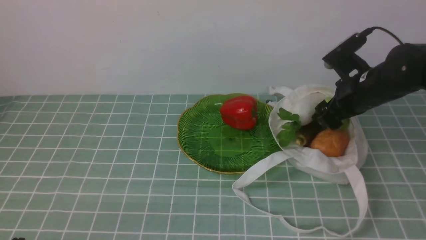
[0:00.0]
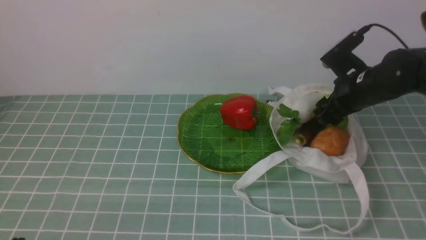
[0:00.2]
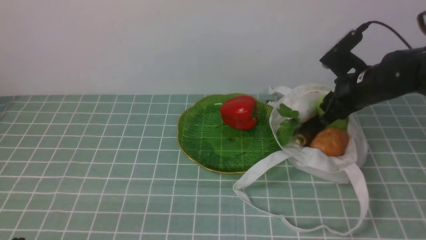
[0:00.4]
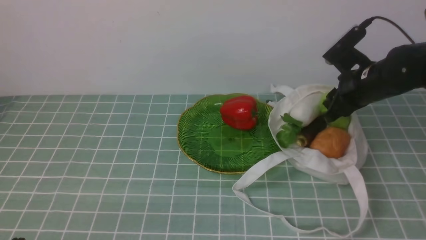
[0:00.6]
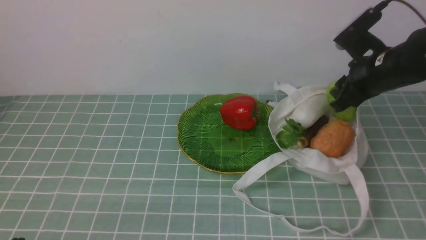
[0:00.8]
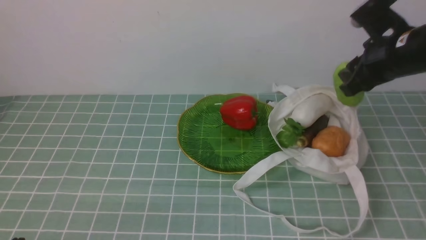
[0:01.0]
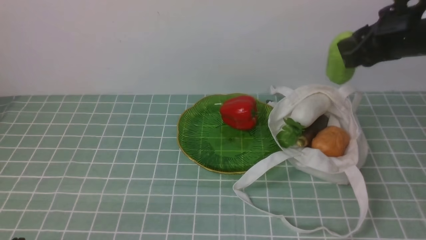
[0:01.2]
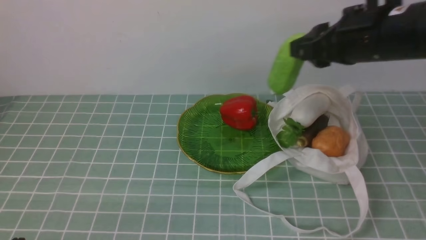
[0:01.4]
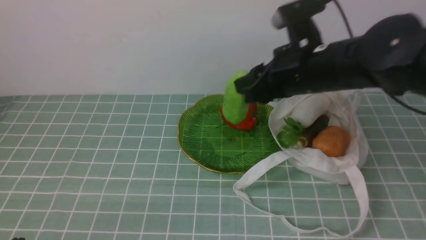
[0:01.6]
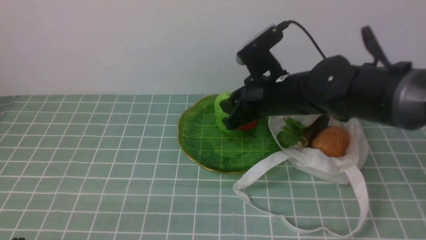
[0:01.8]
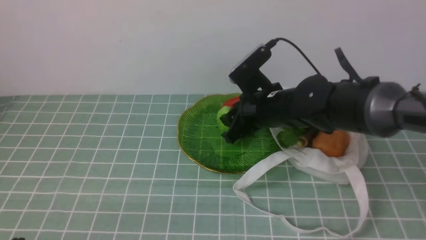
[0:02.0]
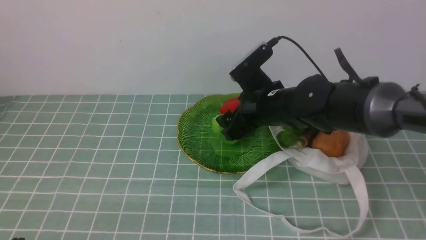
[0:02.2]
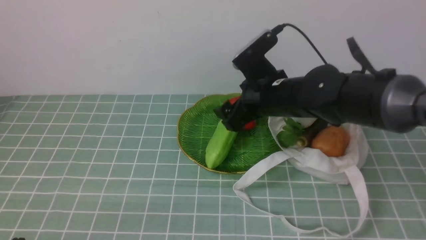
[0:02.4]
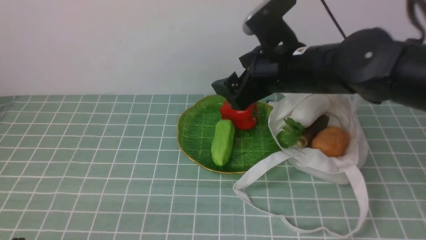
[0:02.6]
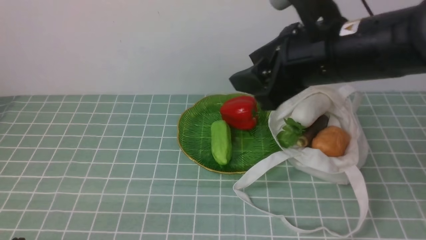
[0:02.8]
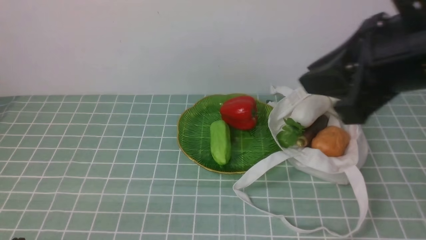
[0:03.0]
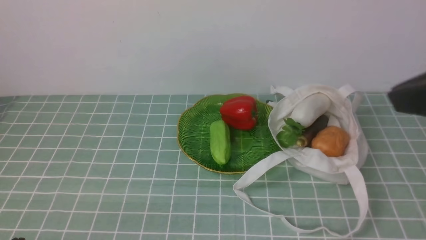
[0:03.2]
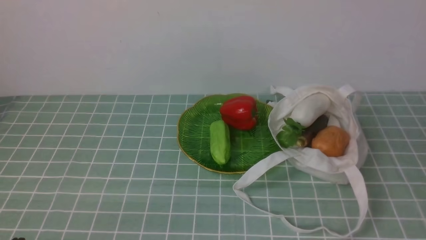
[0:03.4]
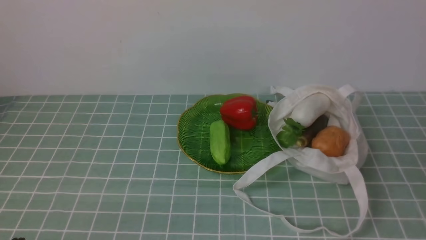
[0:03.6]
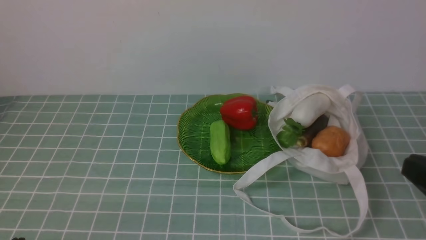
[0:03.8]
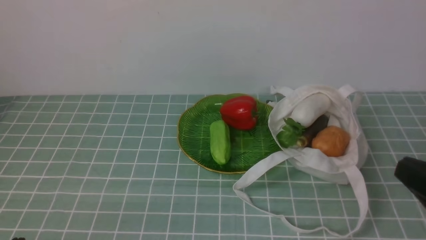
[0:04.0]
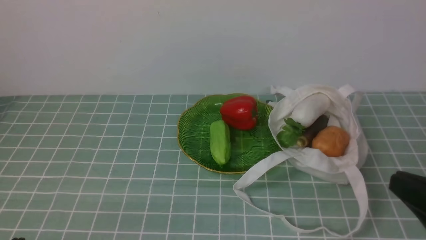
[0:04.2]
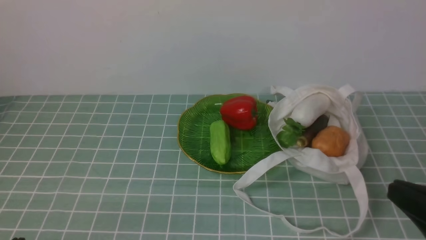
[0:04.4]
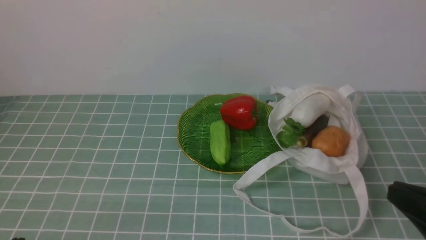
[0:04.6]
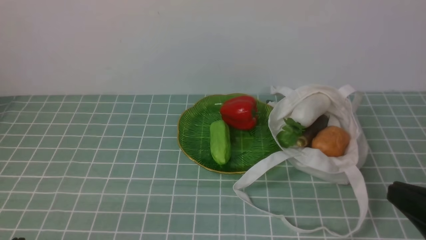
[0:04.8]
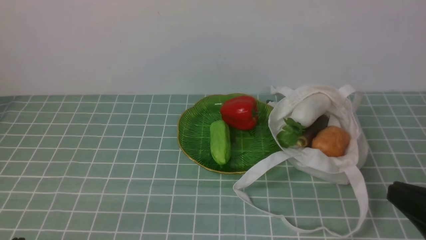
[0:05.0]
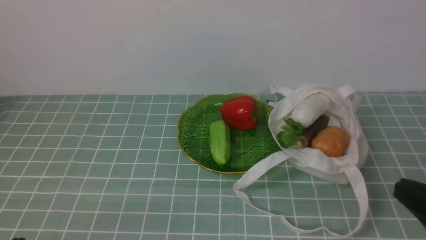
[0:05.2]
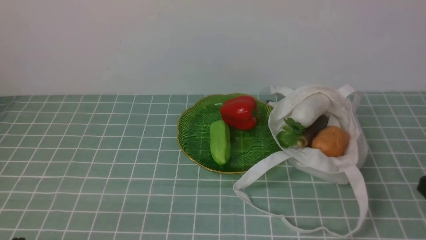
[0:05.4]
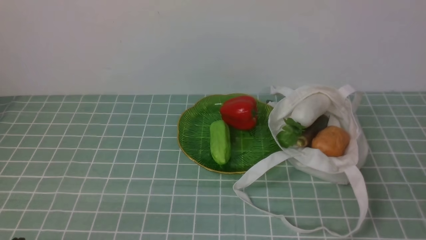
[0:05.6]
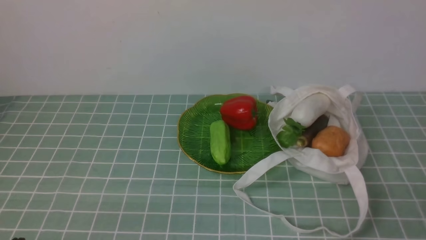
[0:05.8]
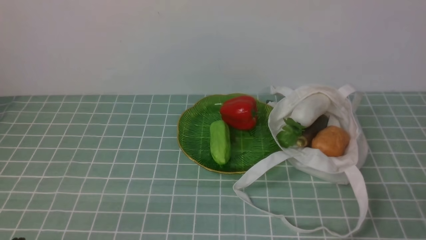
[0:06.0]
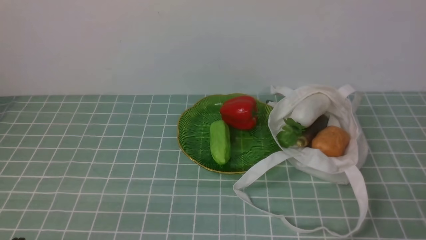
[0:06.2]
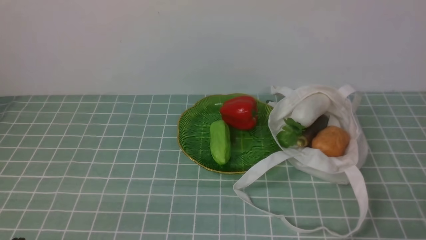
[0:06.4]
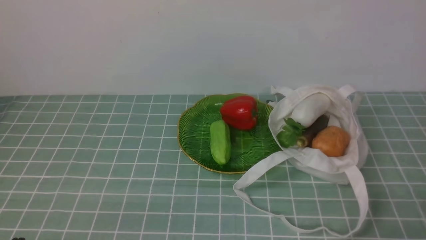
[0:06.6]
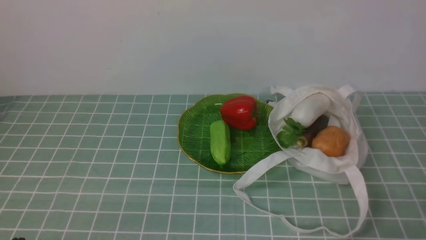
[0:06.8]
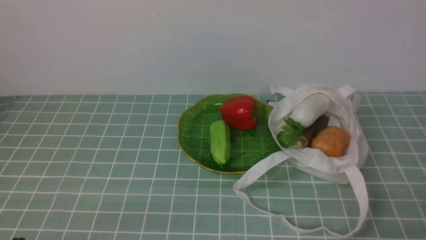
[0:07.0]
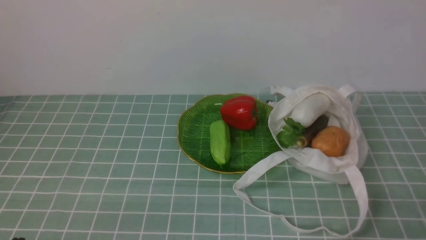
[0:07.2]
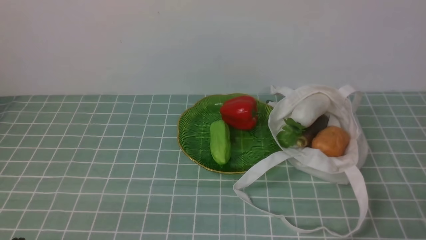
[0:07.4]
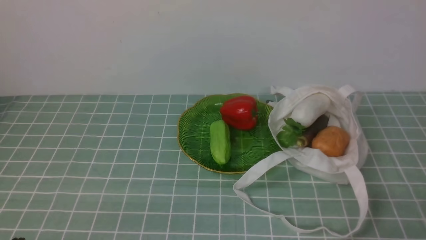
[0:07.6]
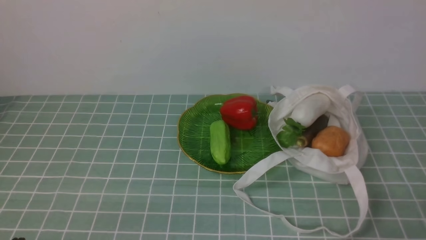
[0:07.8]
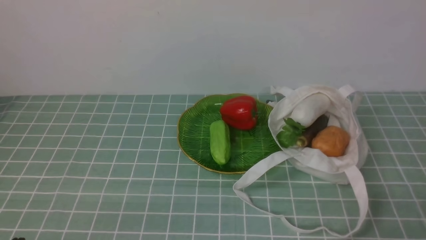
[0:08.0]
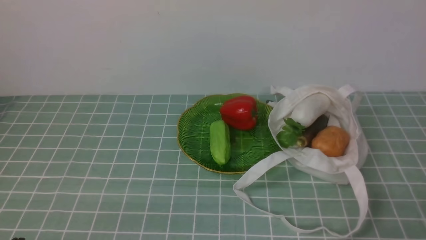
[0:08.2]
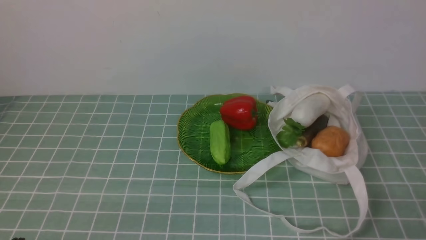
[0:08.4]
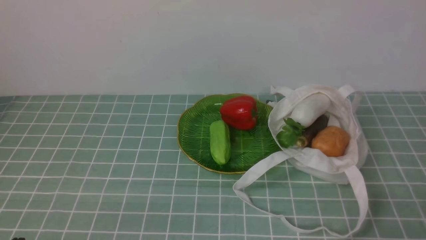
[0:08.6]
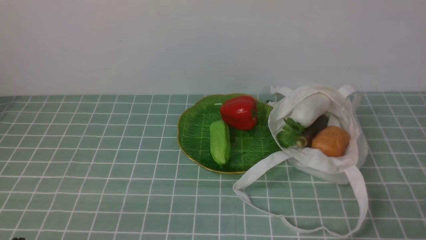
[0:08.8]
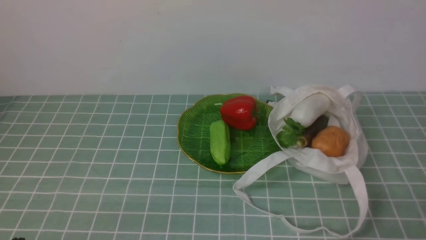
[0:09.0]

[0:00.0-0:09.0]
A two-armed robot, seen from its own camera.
Task of the whole recording: take vegetables from cloth bag on blue coffee tablecloth place on plate.
Step, 0:00.6 to 0:02.4: Place the bitter melon on the plate with right gripper.
0:00.0 to 0:01.6: The right gripper moves to the left and upward, approximately 15 cm, and closes up.
0:01.6 to 0:03.0: The right gripper moves backward and upward, approximately 20 cm, and opens and closes again.
0:03.0 to 0:04.4: The right gripper travels downward, backward and to the right by roughly 20 cm.
0:04.4 to 0:06.0: The right gripper moves downward, about 10 cm.
0:07.6 to 0:09.0: The two grippers keep their place.
